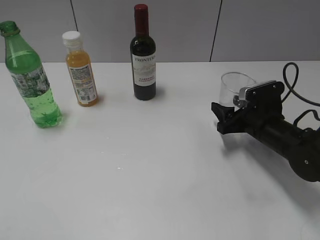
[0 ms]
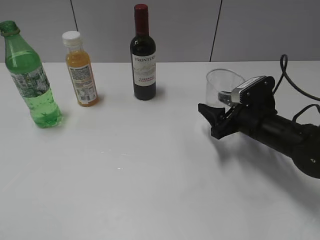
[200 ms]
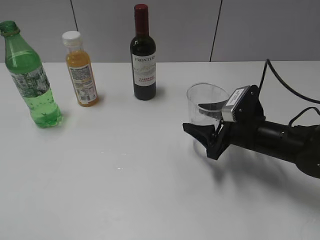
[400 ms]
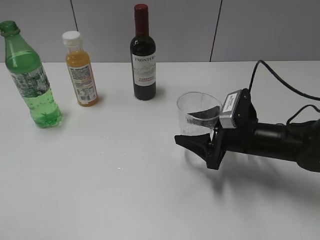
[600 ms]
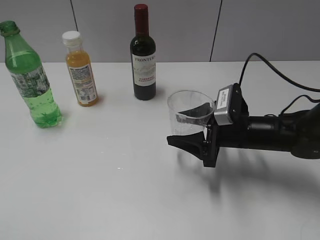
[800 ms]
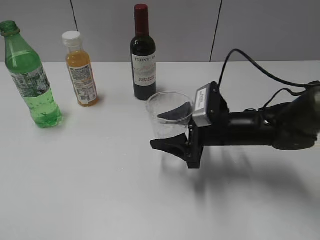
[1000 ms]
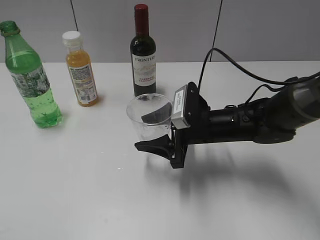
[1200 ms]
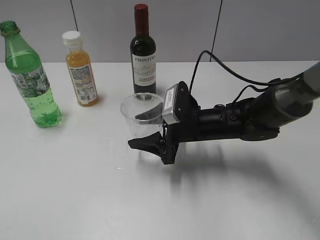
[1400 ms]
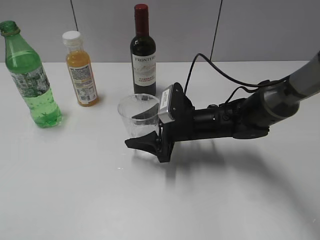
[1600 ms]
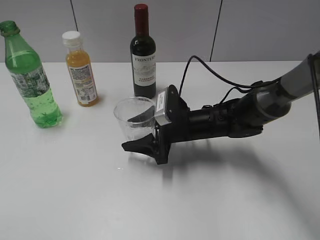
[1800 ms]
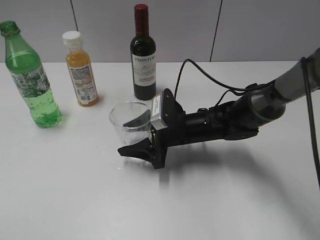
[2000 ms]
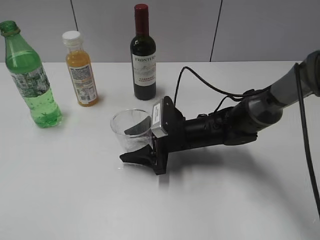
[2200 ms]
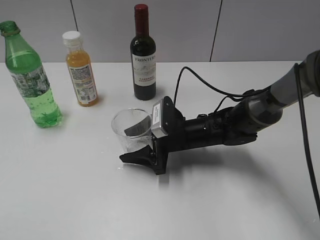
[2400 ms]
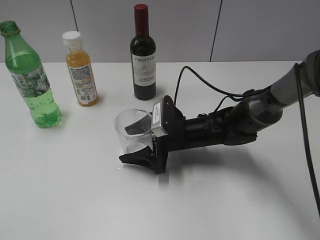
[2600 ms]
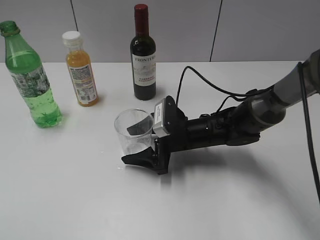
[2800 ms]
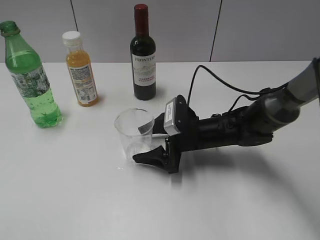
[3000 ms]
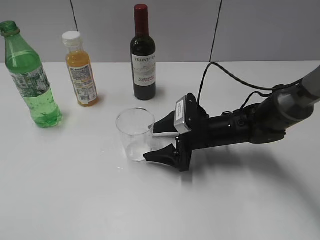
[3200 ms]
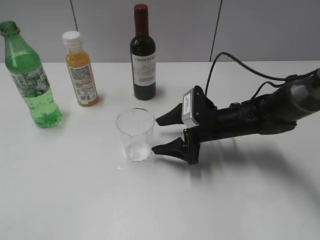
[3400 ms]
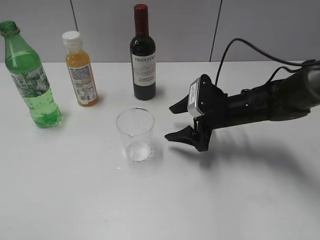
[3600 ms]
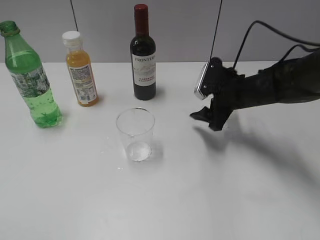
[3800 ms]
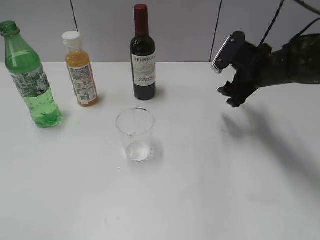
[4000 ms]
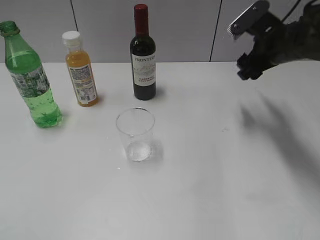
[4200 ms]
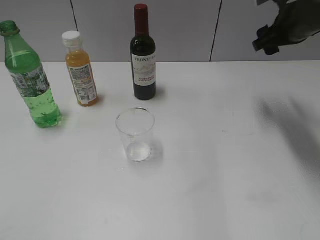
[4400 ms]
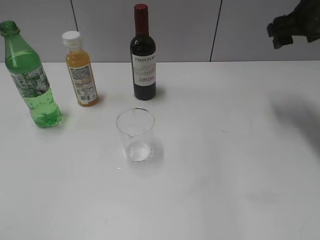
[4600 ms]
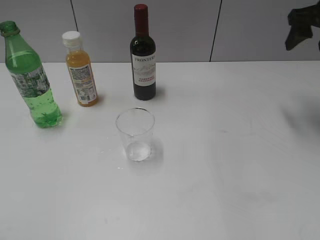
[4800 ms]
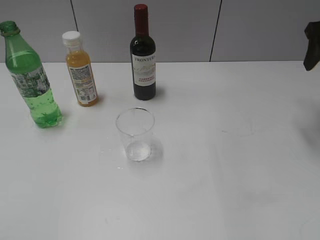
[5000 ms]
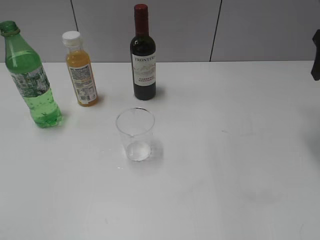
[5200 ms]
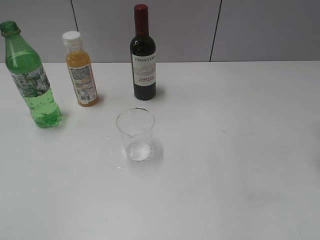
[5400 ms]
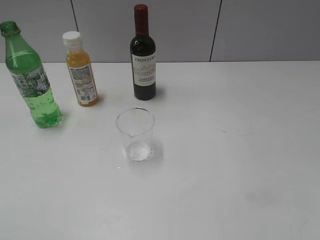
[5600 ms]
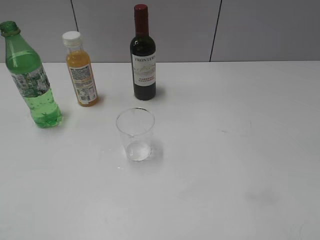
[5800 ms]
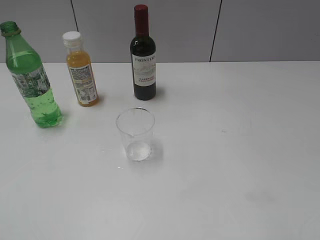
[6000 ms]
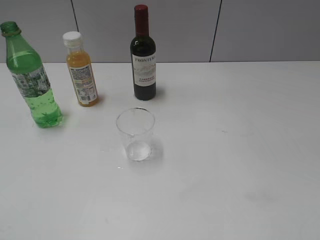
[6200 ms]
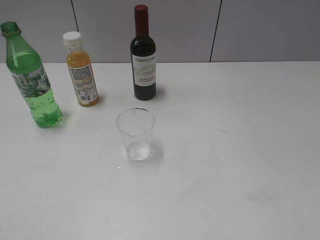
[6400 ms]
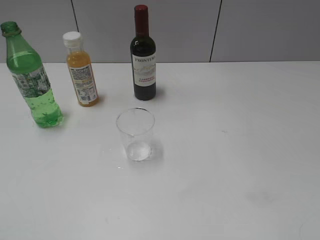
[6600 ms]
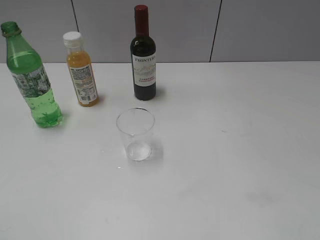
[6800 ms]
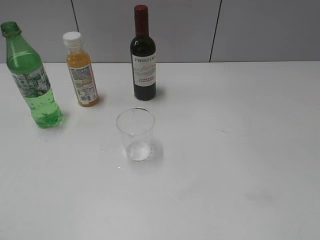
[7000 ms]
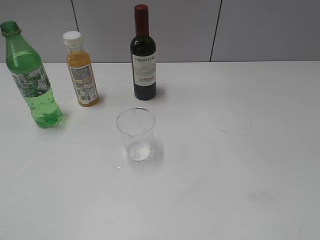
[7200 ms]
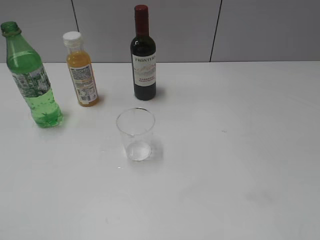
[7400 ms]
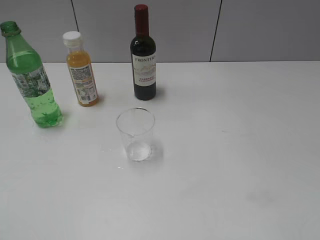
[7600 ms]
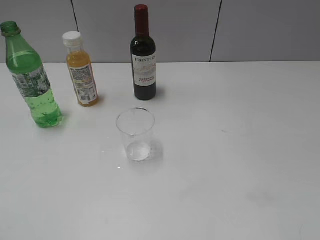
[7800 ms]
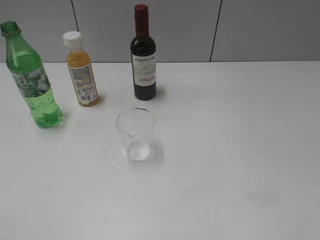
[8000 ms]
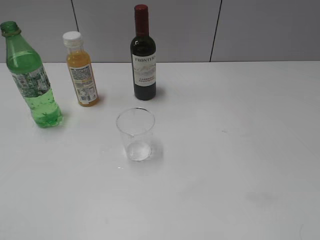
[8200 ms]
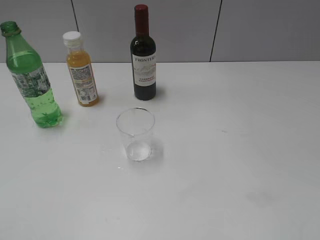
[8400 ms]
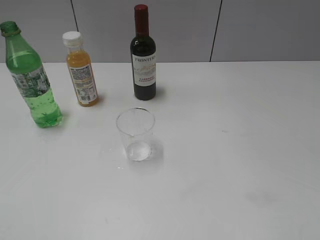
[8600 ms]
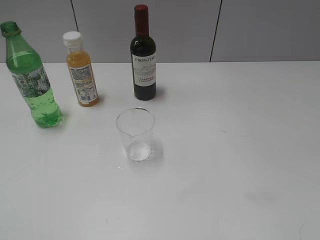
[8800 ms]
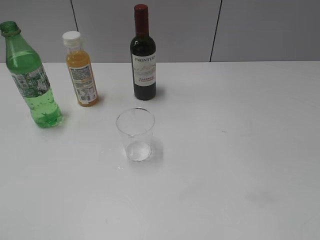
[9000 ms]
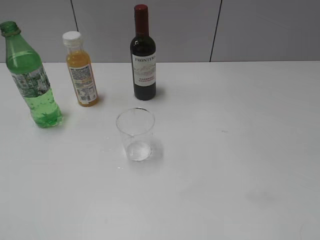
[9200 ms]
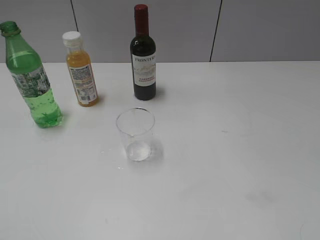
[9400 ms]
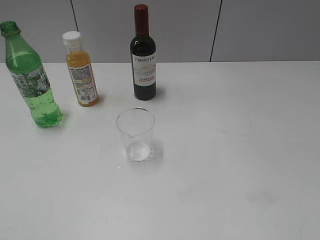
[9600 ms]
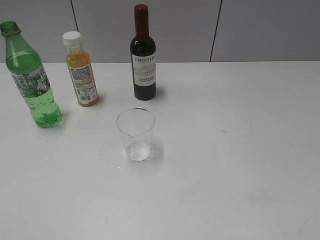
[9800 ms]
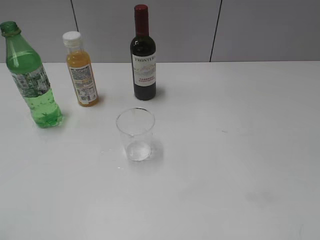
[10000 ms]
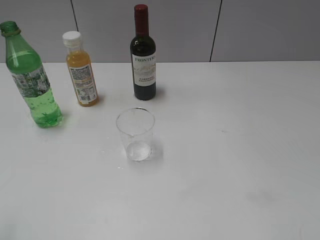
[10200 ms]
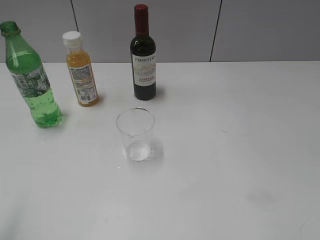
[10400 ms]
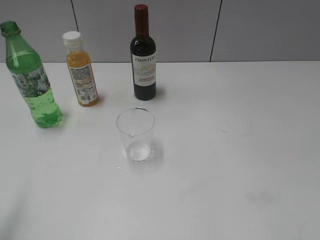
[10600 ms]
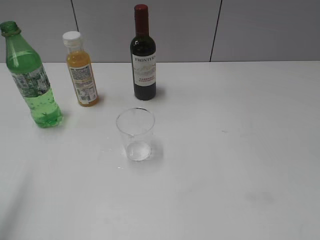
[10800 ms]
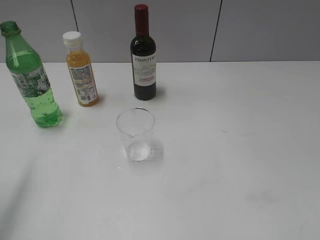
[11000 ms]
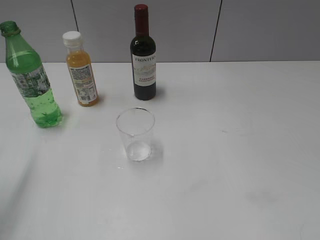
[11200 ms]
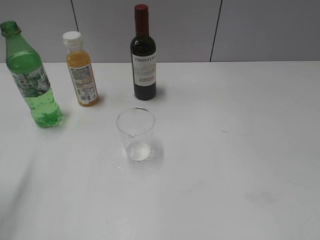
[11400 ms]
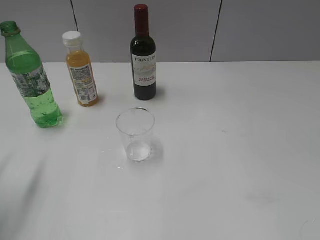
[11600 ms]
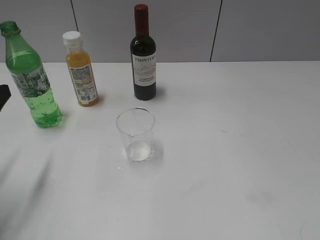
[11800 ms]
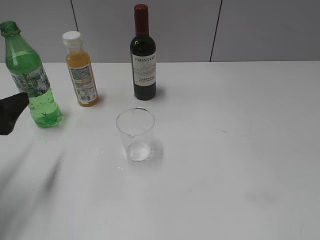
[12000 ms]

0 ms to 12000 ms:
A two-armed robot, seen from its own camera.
Step, 0 ms to 3200 ms: Place the transparent cup on the table with right gripper.
0 ms to 1600 ms: The right gripper moves to the left, roughly 15 cm.
1600 ms to 3000 ms: The right gripper opens its fingers.
3000 ms to 4400 ms: The right gripper travels upward, to the right and forward by approximately 25 cm.
4400 ms to 6000 ms: The right gripper heads backward, covering approximately 30 cm.
7600 ms to 9000 ms: The two grippers keep their place.
10400 ms to 12000 ms: The left gripper is displaced downward and forward by roughly 20 cm.

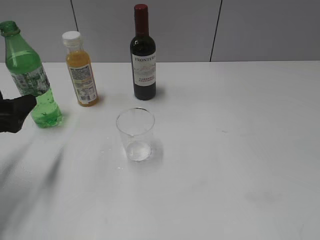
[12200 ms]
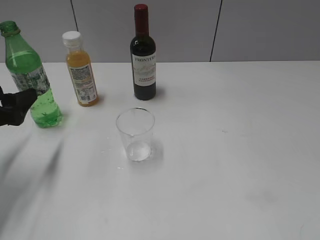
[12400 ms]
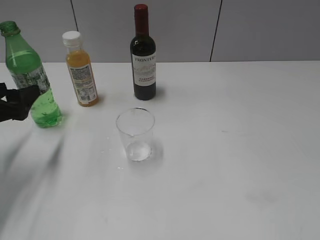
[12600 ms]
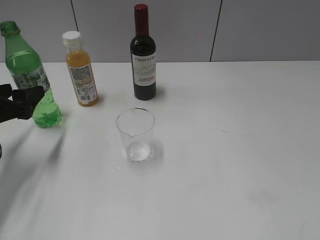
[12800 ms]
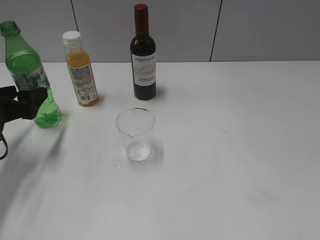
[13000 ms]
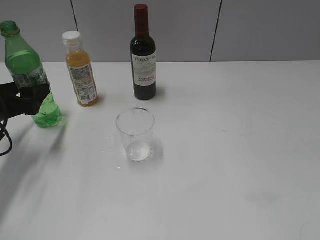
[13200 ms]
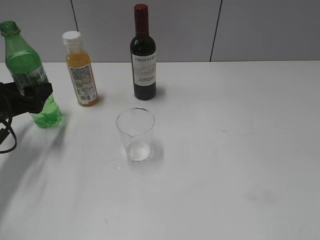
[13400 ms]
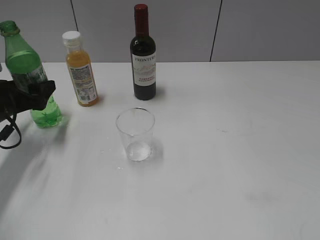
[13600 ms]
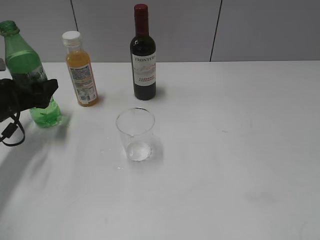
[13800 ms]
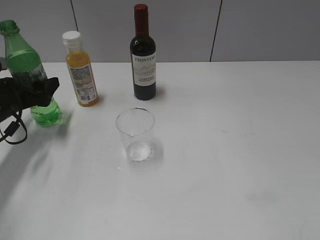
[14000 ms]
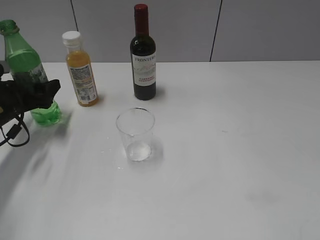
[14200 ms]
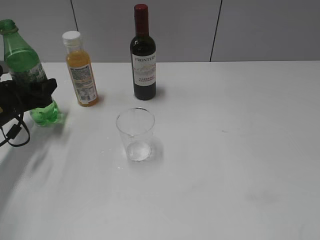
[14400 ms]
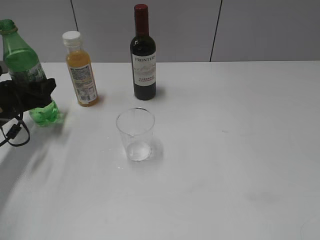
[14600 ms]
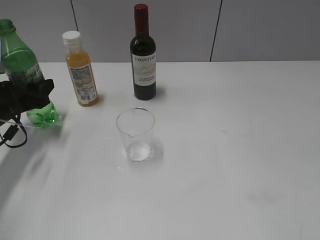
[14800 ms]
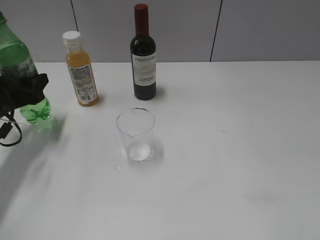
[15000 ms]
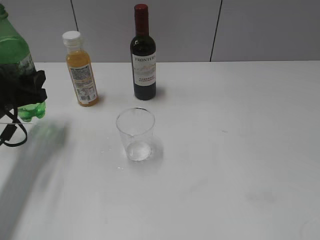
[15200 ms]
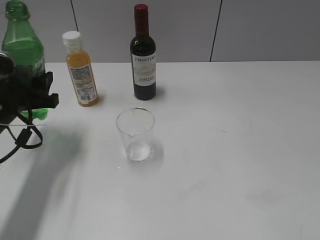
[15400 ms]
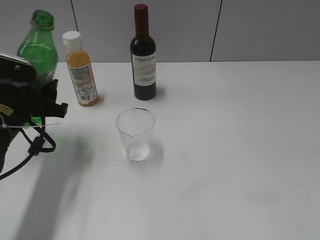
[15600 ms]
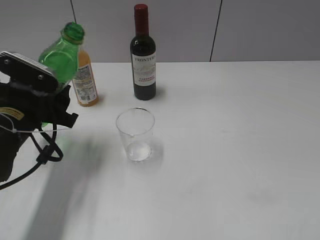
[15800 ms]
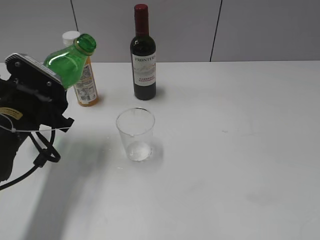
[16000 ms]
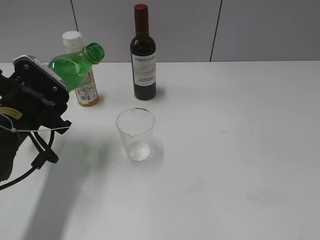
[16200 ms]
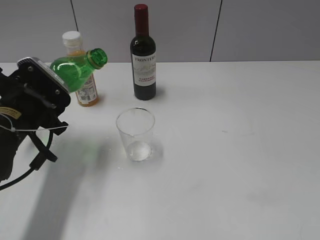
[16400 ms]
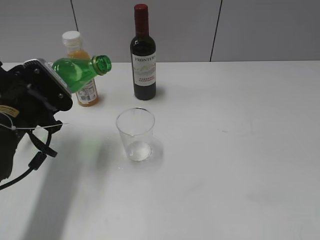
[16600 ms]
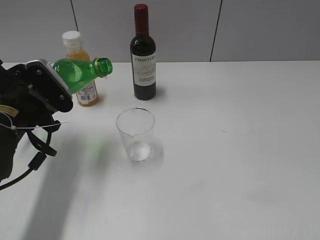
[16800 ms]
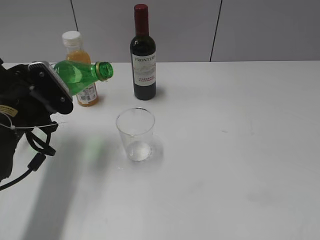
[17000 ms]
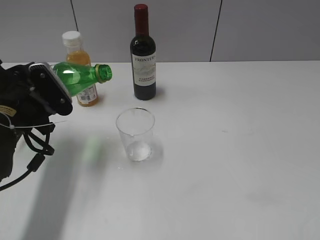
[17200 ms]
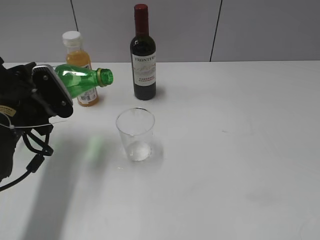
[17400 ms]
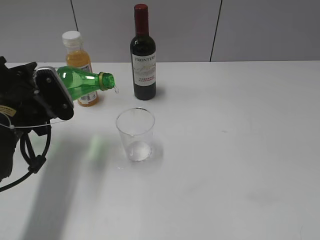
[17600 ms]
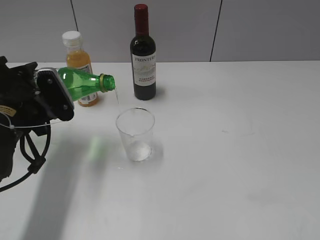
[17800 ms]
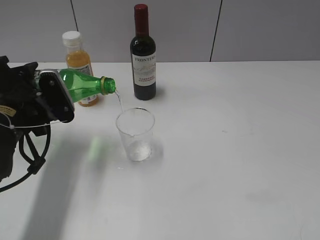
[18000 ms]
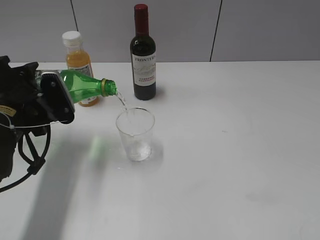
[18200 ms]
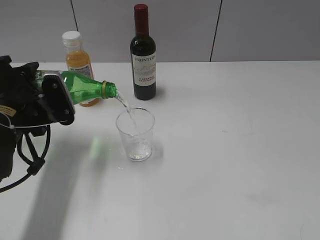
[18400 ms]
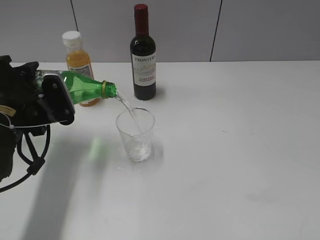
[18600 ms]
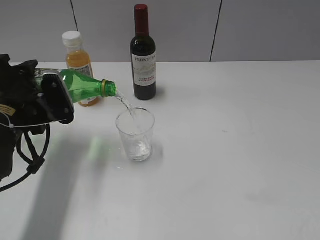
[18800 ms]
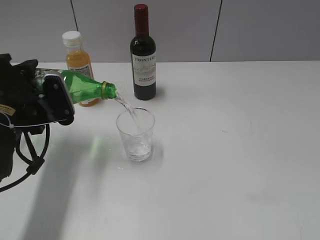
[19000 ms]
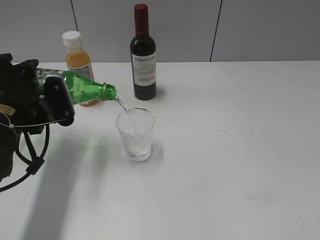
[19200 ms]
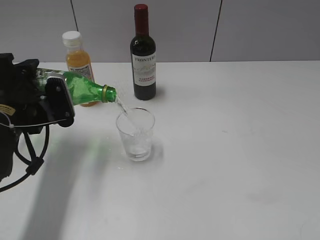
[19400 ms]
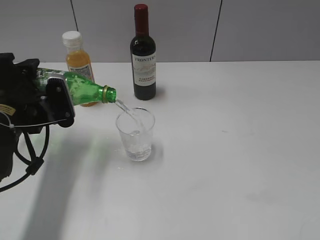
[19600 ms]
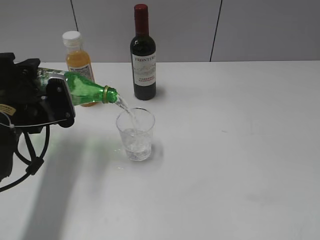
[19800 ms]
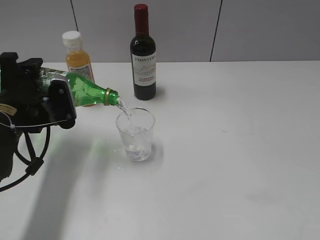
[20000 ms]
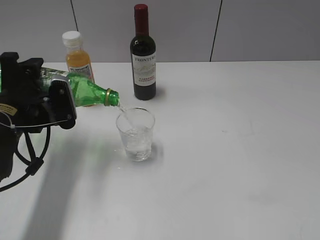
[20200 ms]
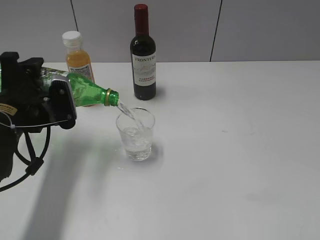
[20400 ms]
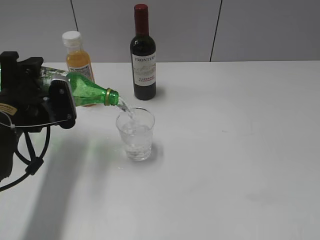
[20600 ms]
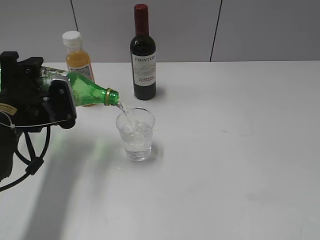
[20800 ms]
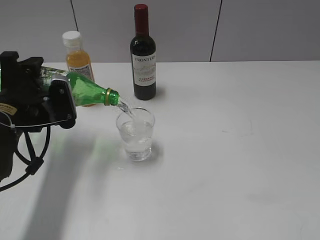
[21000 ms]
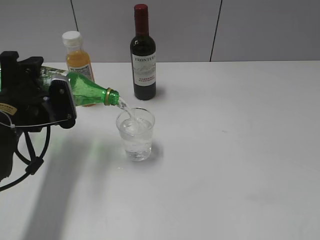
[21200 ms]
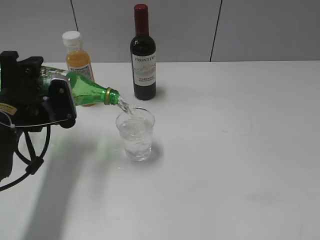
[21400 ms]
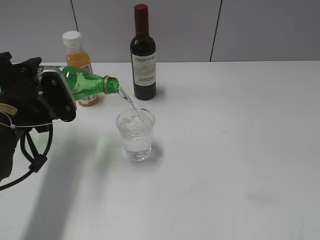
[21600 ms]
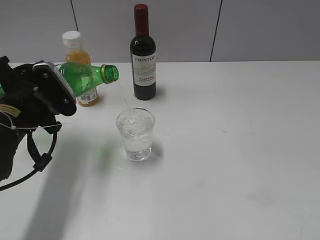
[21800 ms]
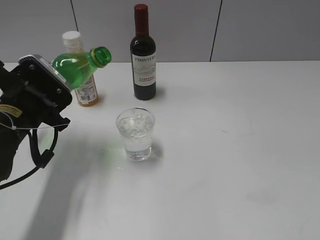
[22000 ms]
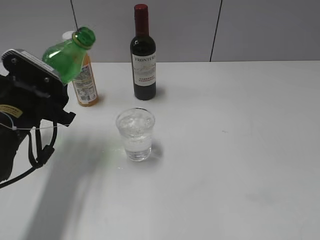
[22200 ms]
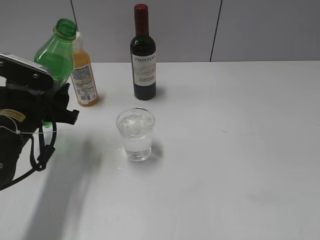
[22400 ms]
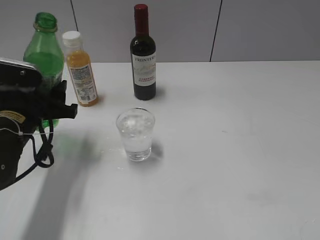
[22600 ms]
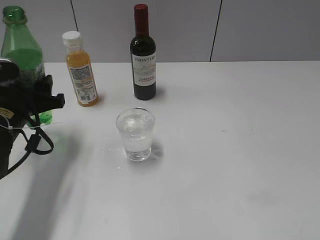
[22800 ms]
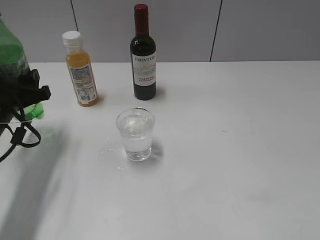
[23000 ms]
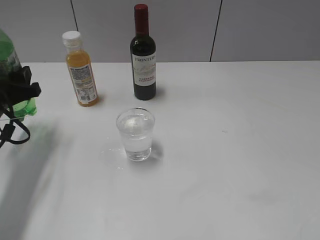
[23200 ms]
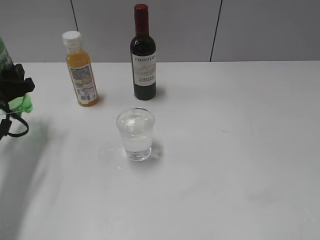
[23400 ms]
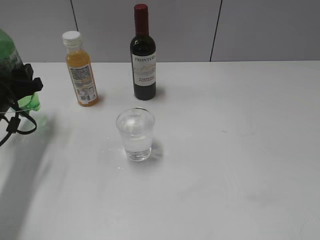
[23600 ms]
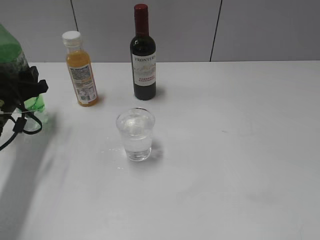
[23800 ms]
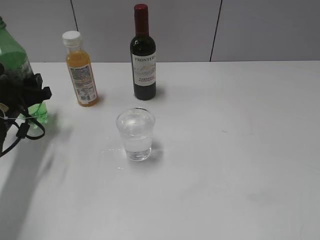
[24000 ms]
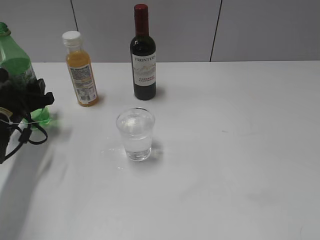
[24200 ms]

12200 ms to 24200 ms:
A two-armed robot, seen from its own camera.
Step, 12200 ms to 14400 ms: Grasp the bottle with sprite with left gripper.
Step, 14600 ms to 21800 ms: Pour the sprite from bottle to cup with left gripper.
12200 ms to 13800 ms: The left gripper shifts some 10 cm forward.
13800 ms to 15200 ms: The left gripper moves roughly 5 cm, and closes.
15200 ms to 16600 ms: The left gripper goes about 5 cm to the right.
16600 ms to 18200 ms: The grippers stay close to where they were, moving slightly.
18200 ms to 19800 ms: The grippers make only small movements.
19800 ms to 21200 ms: Neither gripper changes place.
22600 ms to 24200 ms: The left gripper travels to the left and forward by some 10 cm.
